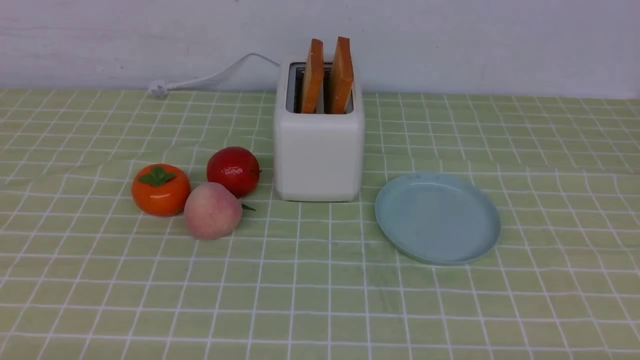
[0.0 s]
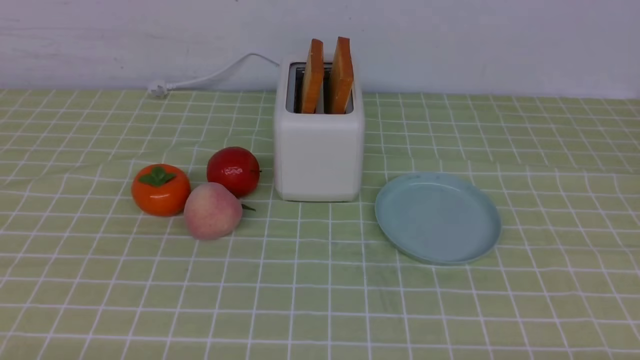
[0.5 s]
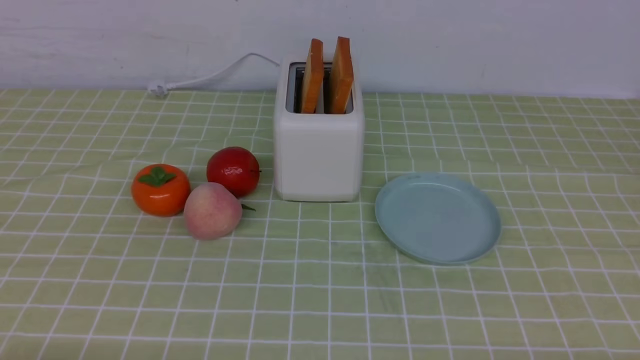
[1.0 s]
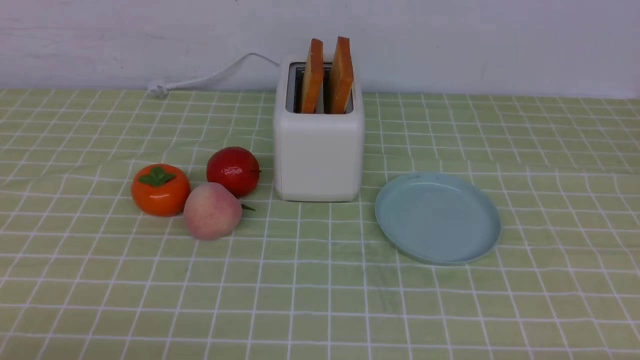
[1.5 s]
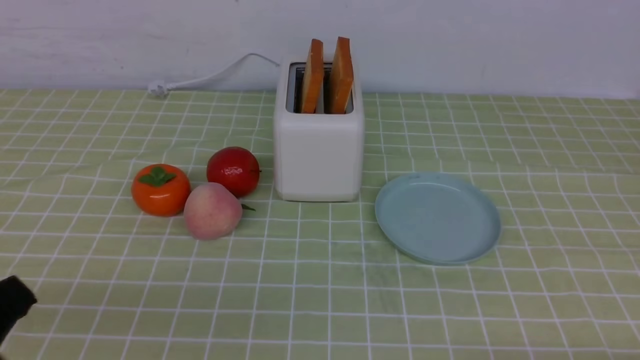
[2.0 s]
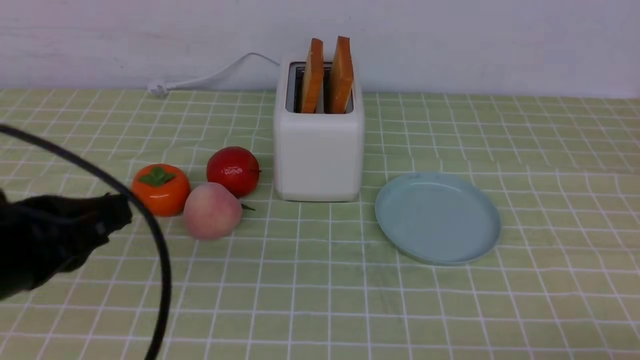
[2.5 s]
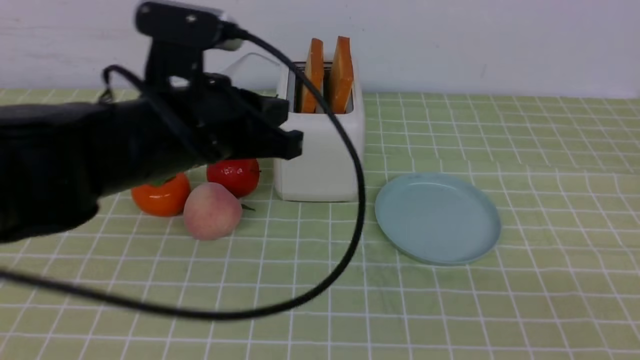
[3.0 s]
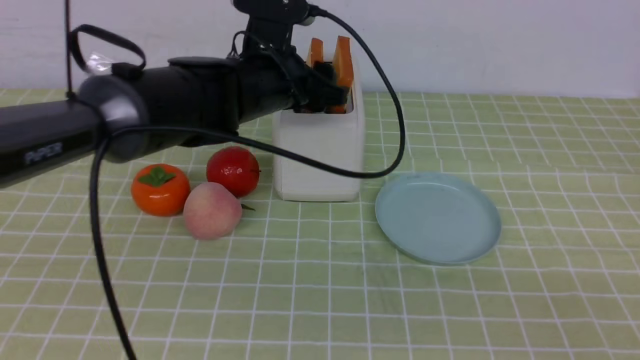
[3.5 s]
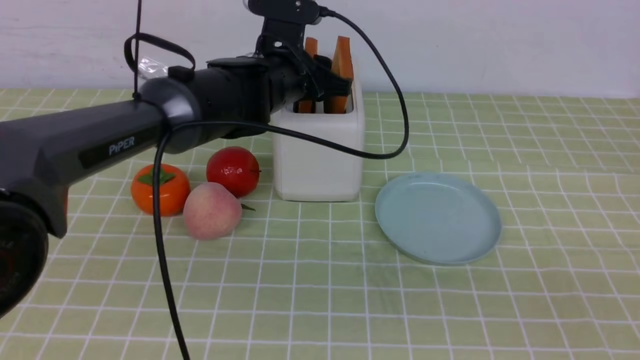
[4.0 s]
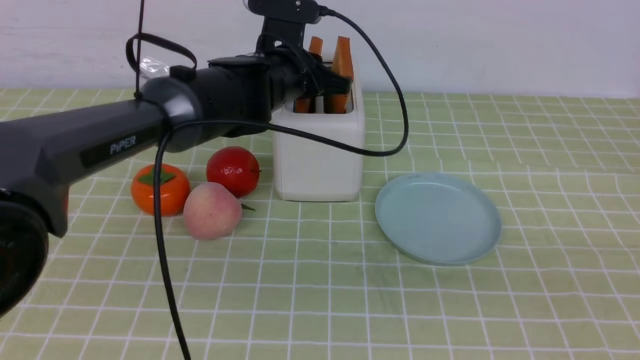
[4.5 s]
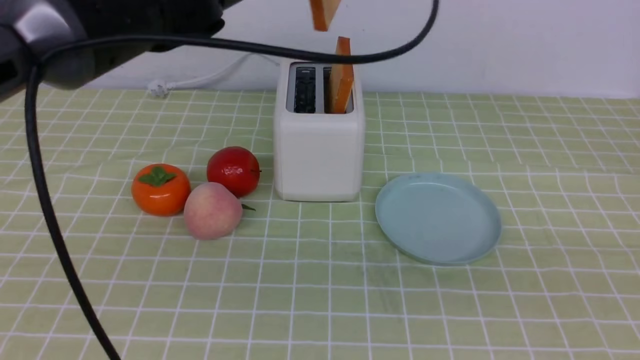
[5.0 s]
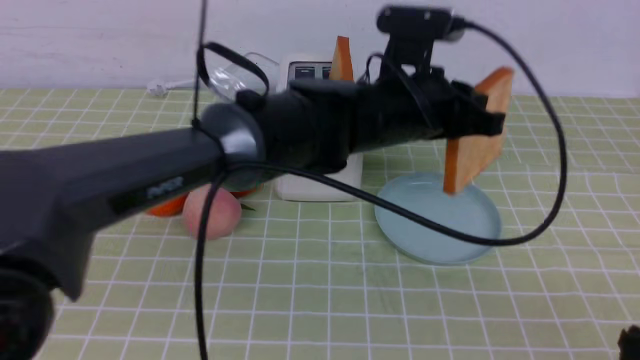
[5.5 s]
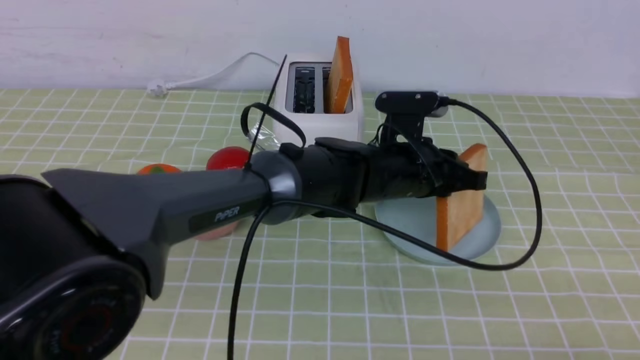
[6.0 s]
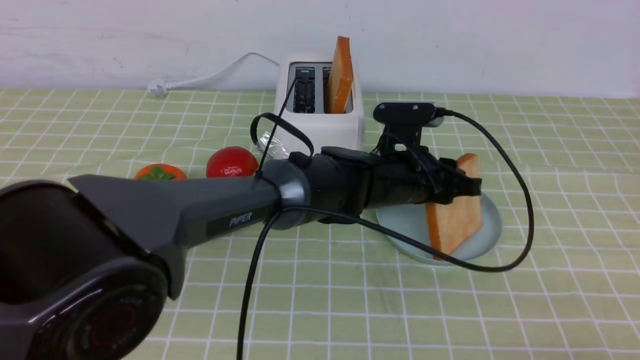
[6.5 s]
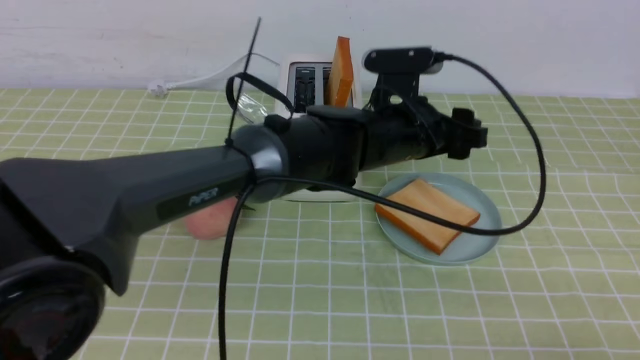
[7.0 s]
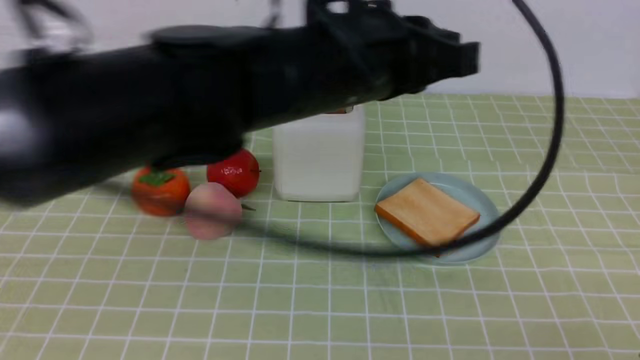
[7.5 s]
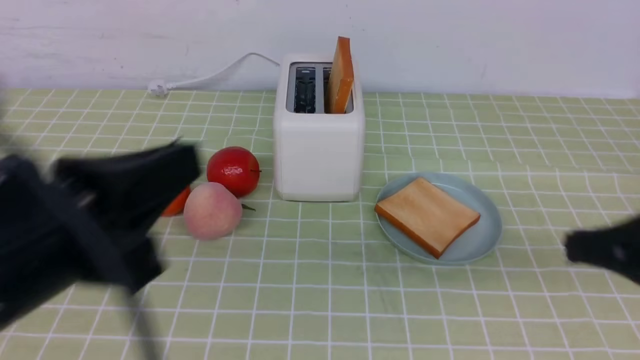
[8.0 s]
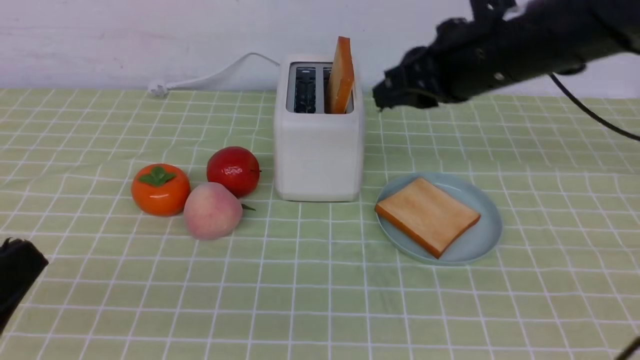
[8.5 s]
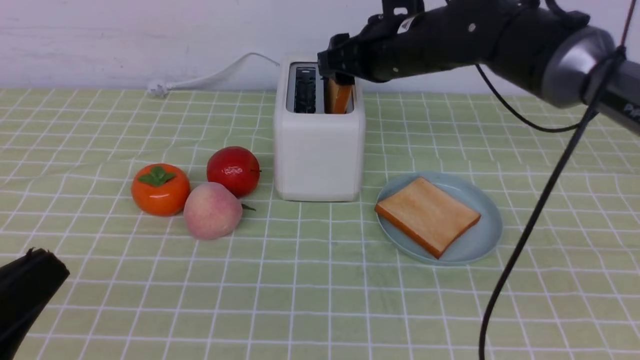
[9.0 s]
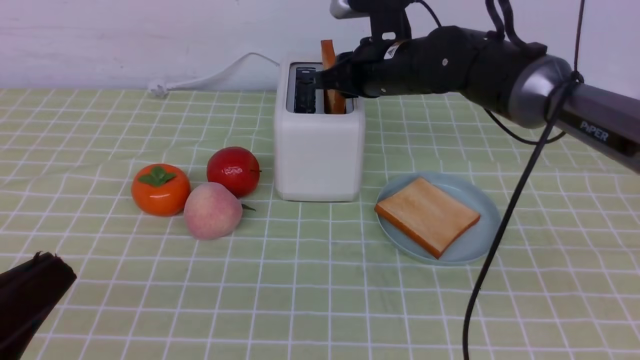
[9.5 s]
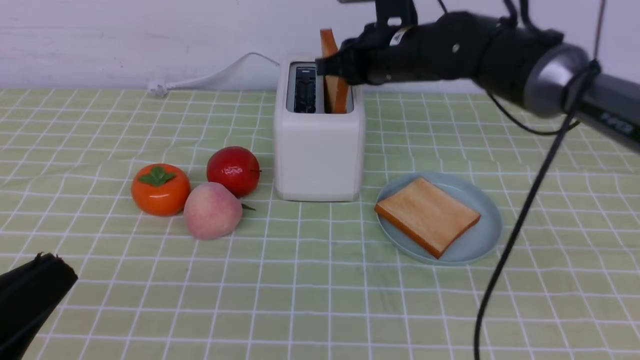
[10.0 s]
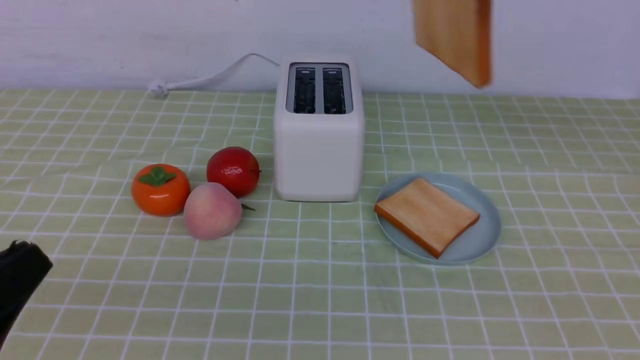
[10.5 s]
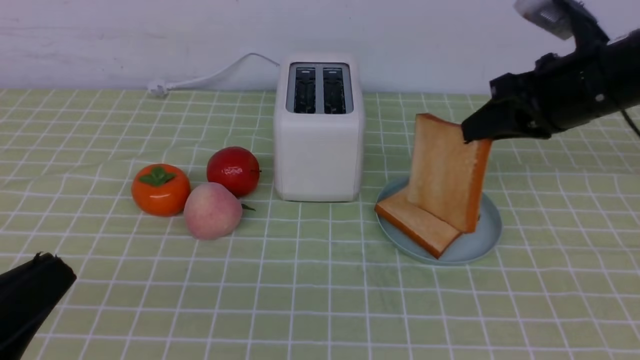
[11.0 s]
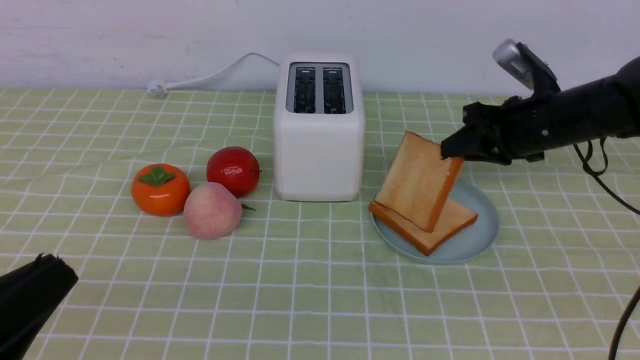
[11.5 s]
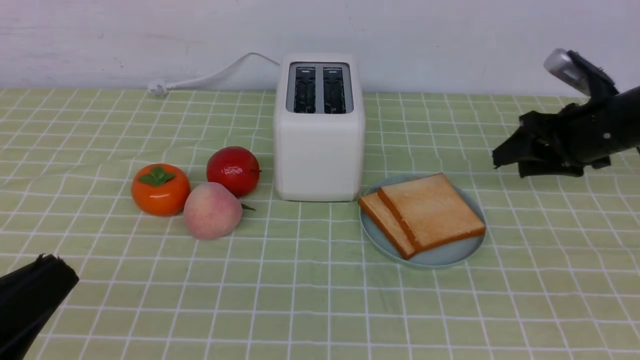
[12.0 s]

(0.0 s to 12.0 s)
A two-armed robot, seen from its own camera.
Task of the whole recording: take toasted bread from bread machine on green coffee tablecloth place on plate.
Step, 0.0 s - 4.5 s: use the left arm to take out a slice of bread.
Step, 5.5 s - 7.5 s: use the left arm to put a slice of bread into the empty plate.
Step, 8.0 s - 10.0 s: use the right arm to take out a slice of bread.
0.0 s - 2.0 s: The left gripper is displaced upward by about 10 cm, and closes its fingers.
2.0 s - 4.0 s: The right gripper goes approximately 15 cm upward, and closes its fingers, while the left gripper is displaced forward and to the right by some 40 cm, and opens its fingers.
4.0 s - 6.0 s: The left gripper heads to the right and backward, covering approximately 15 cm, moves roughly 15 cm upward and comes back, and closes up.
6.0 s - 8.0 s: The left gripper is displaced backward, to the left and upward by some 40 cm, and opens and closes again. The right gripper moves forward, some 15 cm.
8.0 s - 10.0 s: The right gripper heads forward and to the left, covering about 30 cm, and opens and closes again, while the left gripper travels downward, backward and to the left by roughly 10 cm.
10.0 s - 12.0 s: The right gripper heads to the right, covering some 20 cm, and opens.

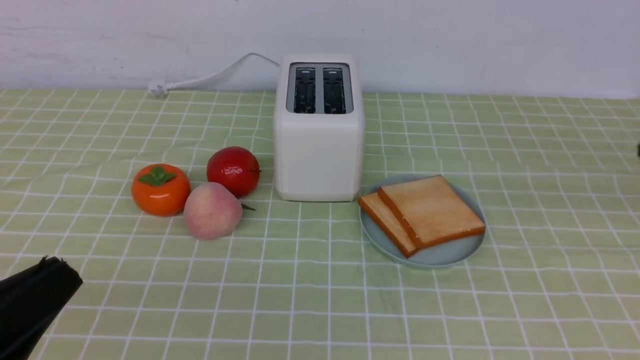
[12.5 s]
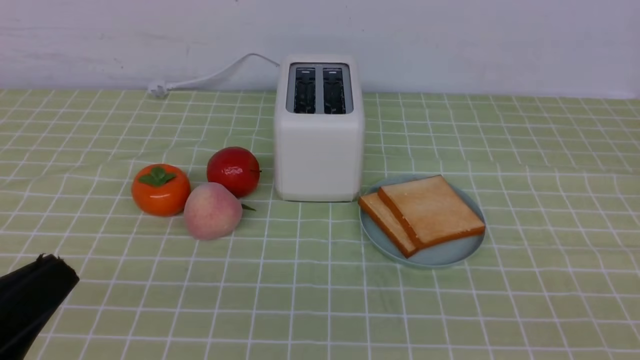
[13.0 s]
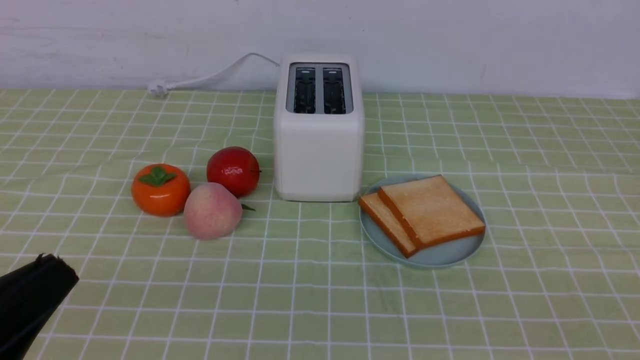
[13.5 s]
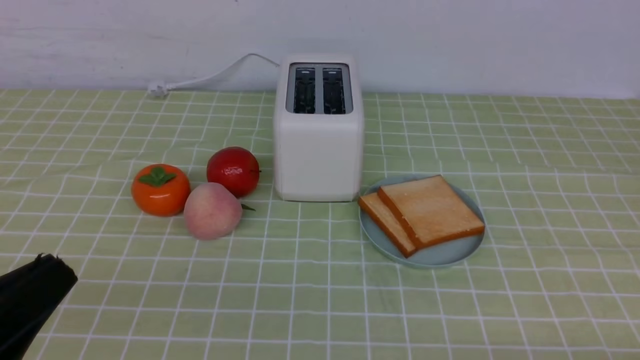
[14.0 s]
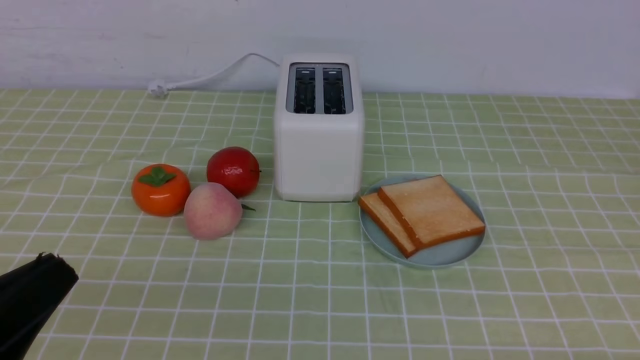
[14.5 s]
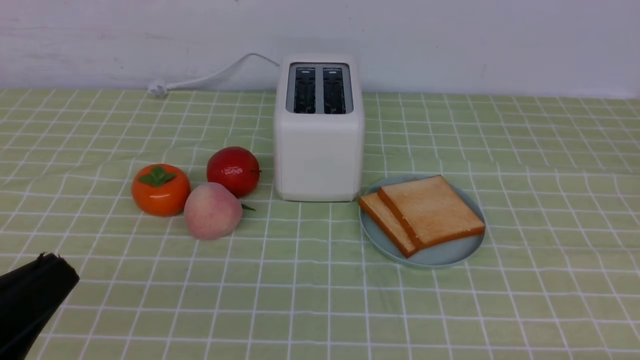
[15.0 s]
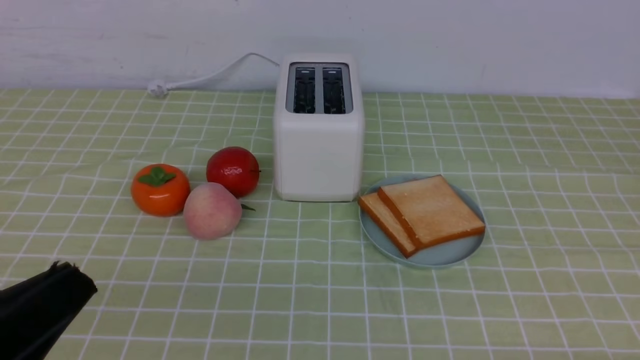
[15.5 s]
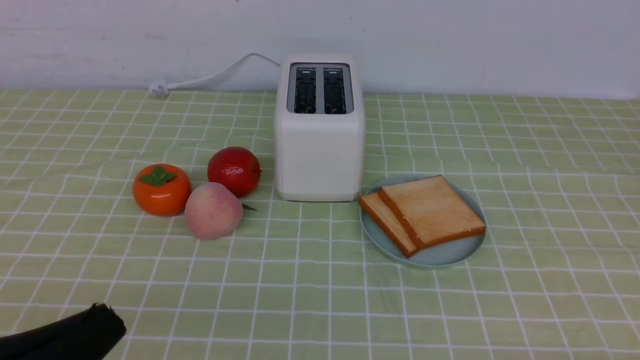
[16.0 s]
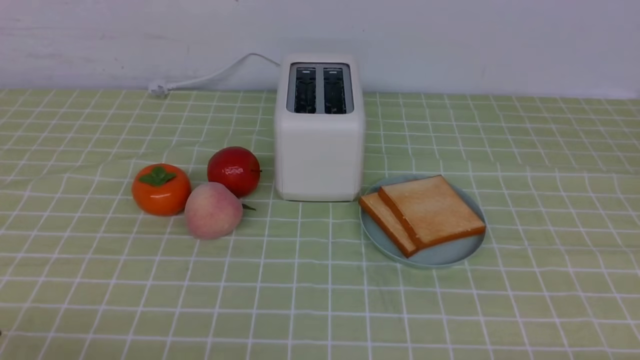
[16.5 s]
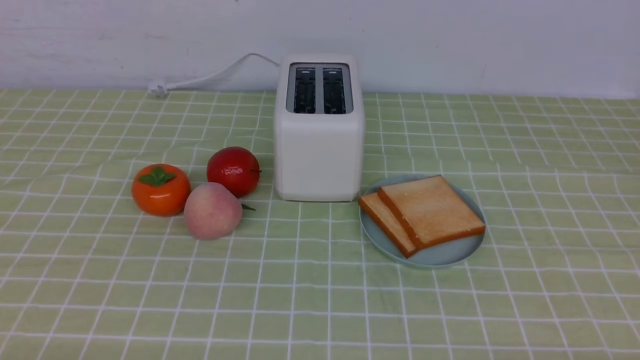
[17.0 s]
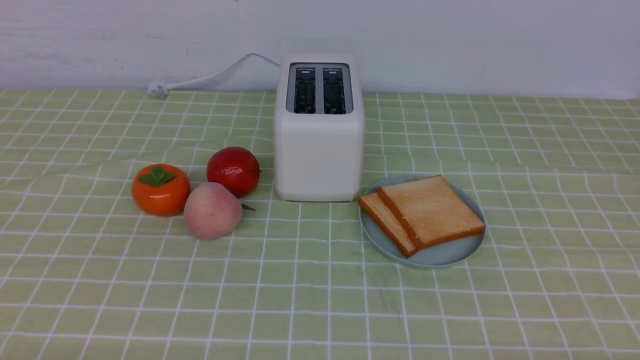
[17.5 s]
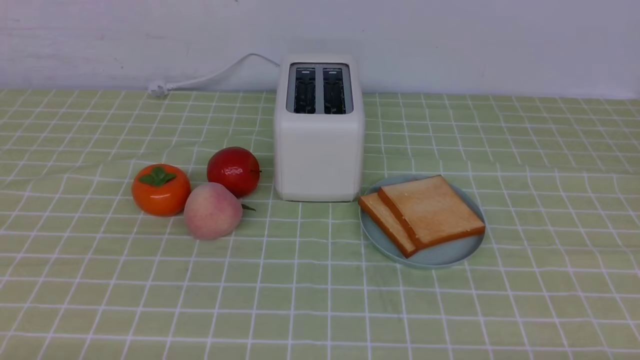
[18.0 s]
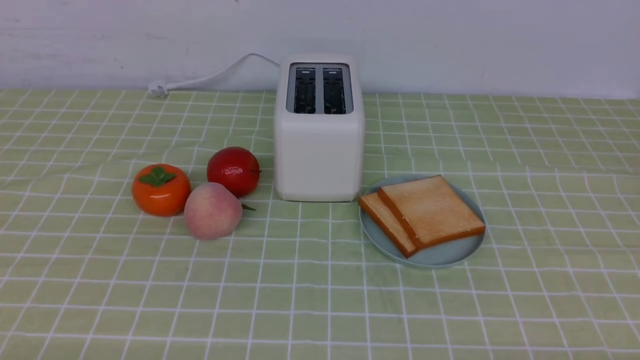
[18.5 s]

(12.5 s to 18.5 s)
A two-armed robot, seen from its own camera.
Task of the whole recording: take toasted bread from bread machine on green coffee tablecloth place on plate.
14.5 s - 16.5 s: The left gripper is displaced downward by approximately 5 cm.
